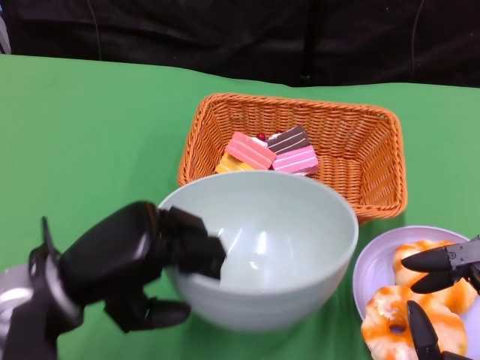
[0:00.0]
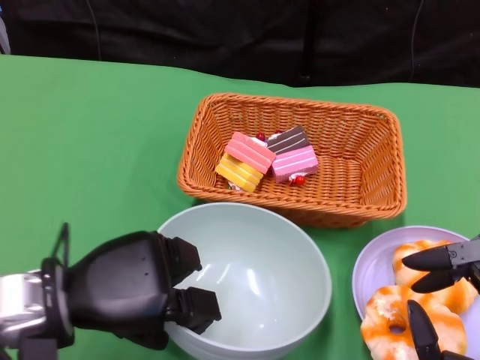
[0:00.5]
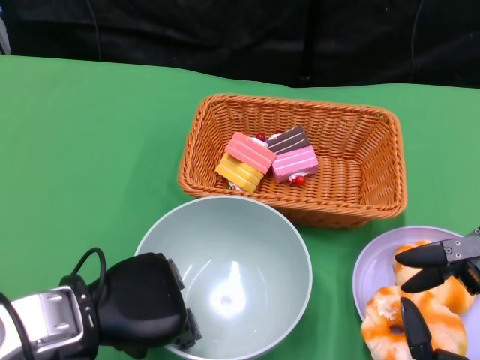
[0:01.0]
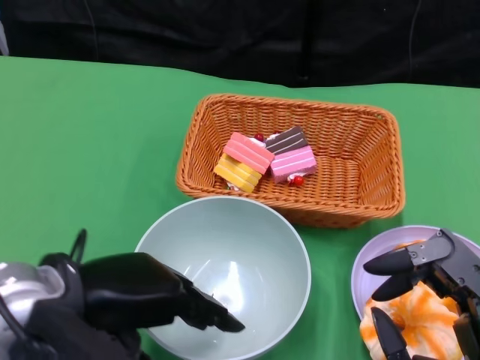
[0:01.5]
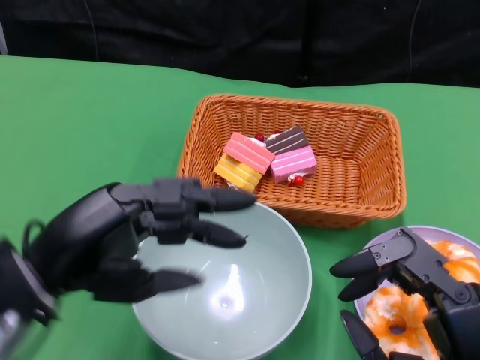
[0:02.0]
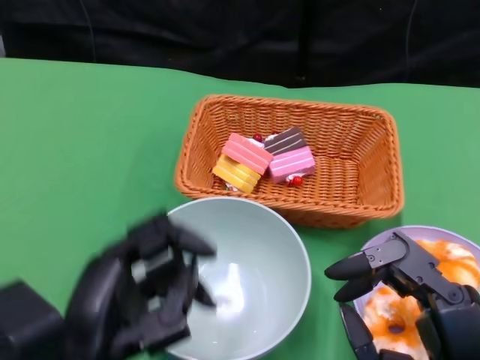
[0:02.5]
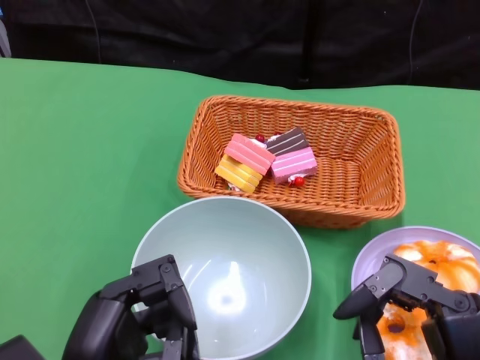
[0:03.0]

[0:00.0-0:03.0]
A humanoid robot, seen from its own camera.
0:00.0 to 0:01.5: The left hand ends up some 5 cm from where it was.
0:01.5 to 0:03.0: The left hand goes about 10 cm backward and downward.

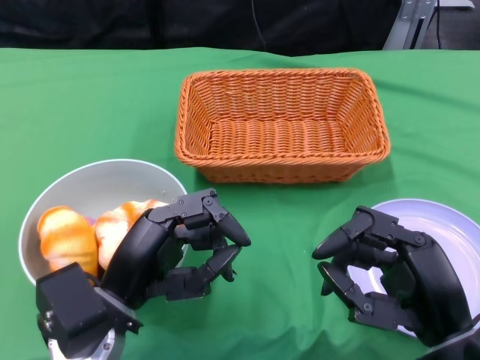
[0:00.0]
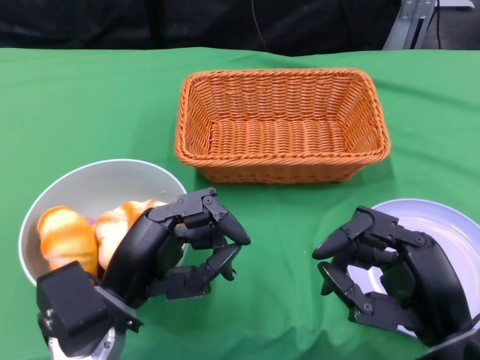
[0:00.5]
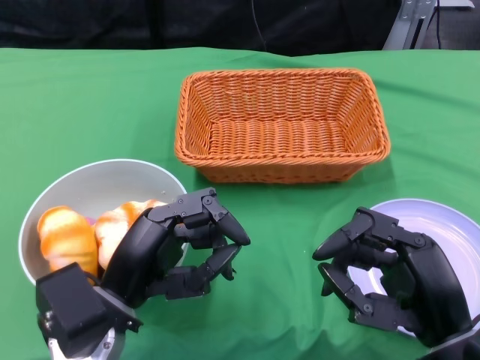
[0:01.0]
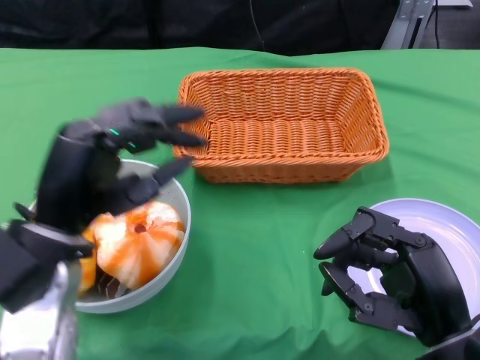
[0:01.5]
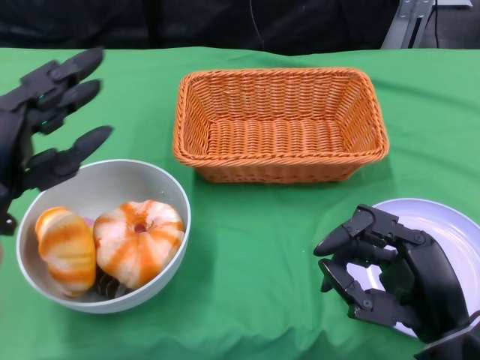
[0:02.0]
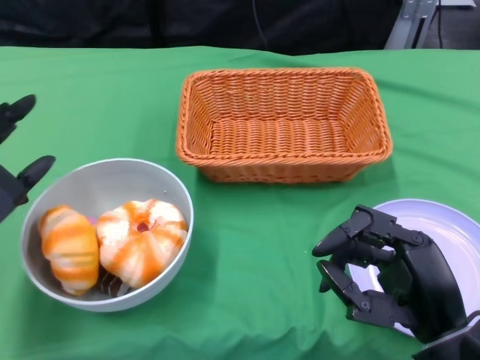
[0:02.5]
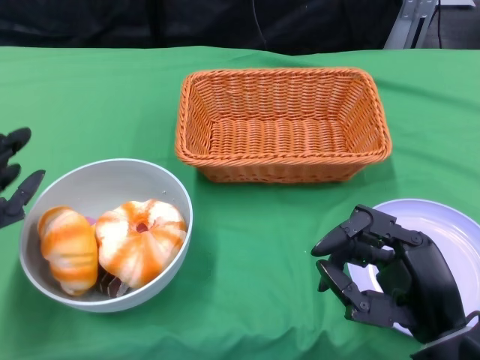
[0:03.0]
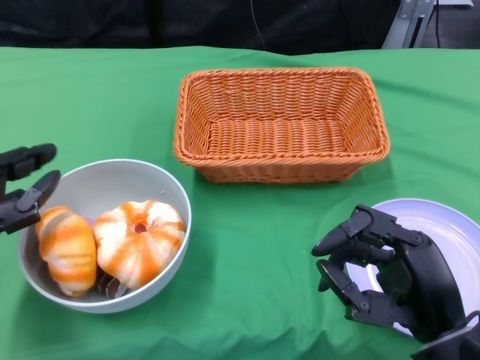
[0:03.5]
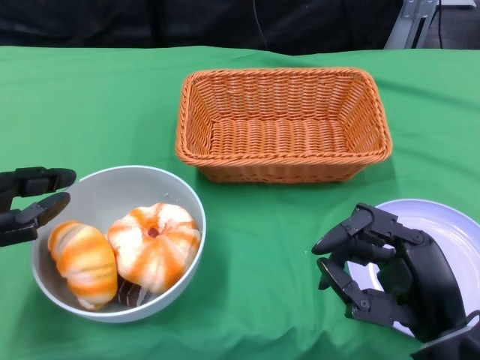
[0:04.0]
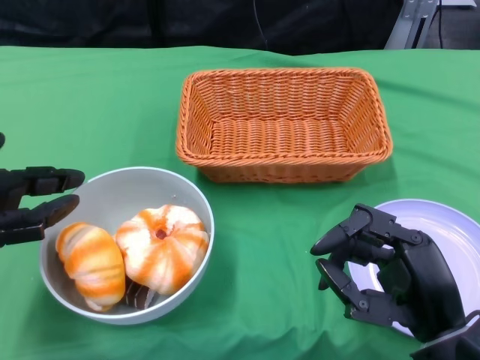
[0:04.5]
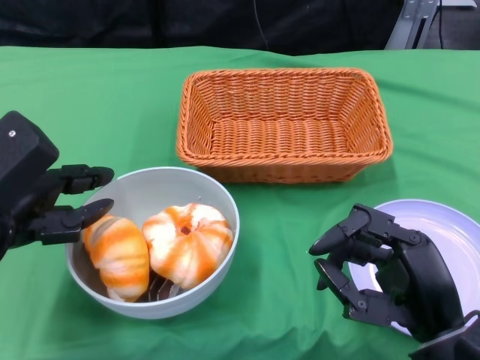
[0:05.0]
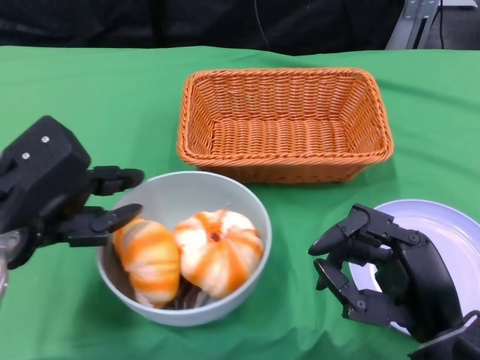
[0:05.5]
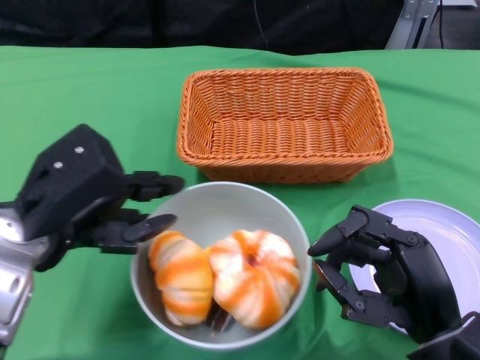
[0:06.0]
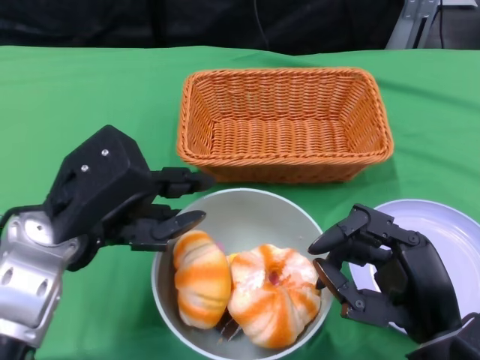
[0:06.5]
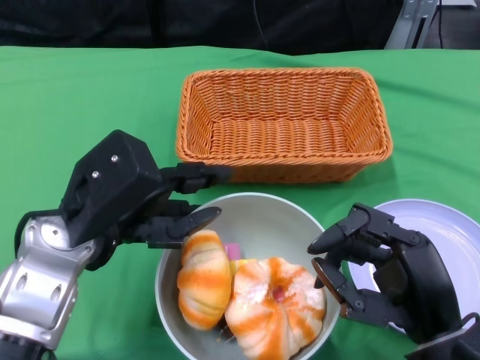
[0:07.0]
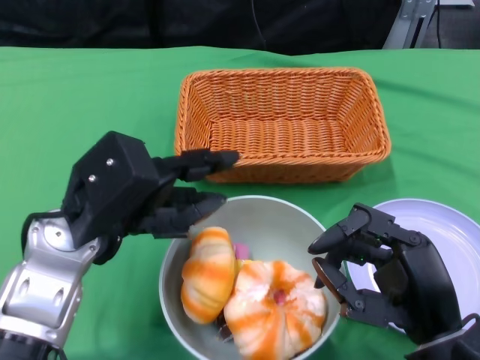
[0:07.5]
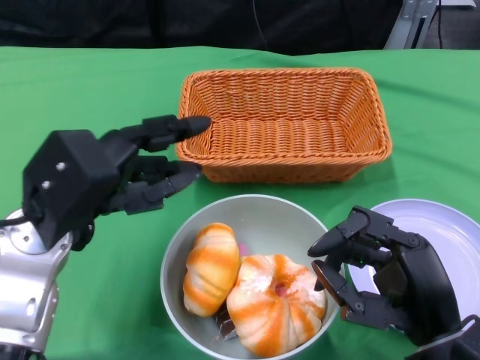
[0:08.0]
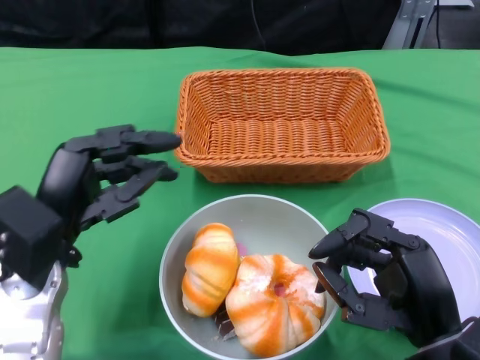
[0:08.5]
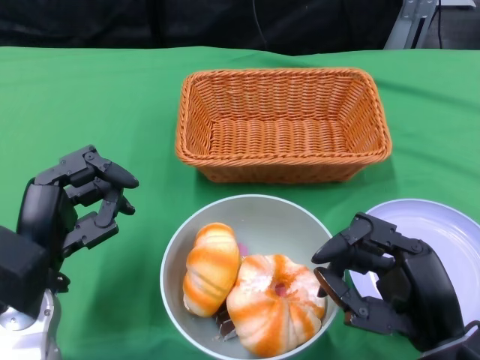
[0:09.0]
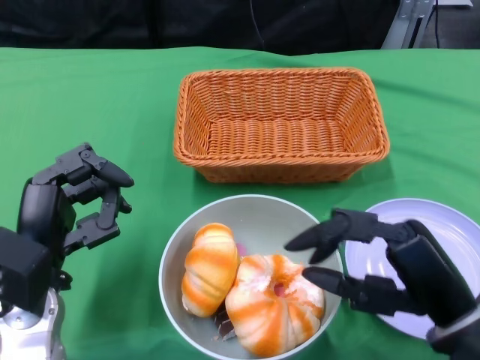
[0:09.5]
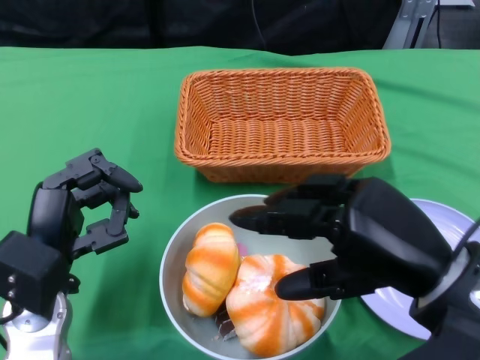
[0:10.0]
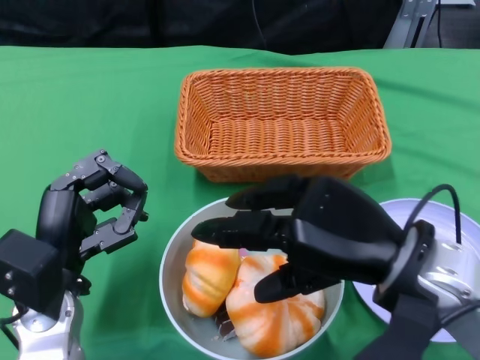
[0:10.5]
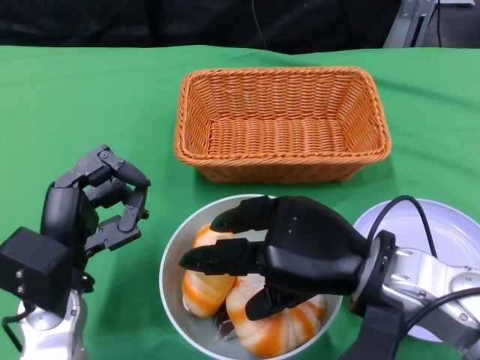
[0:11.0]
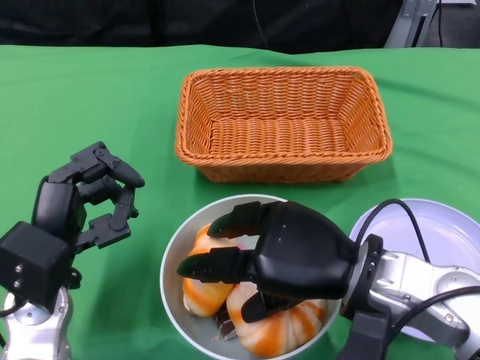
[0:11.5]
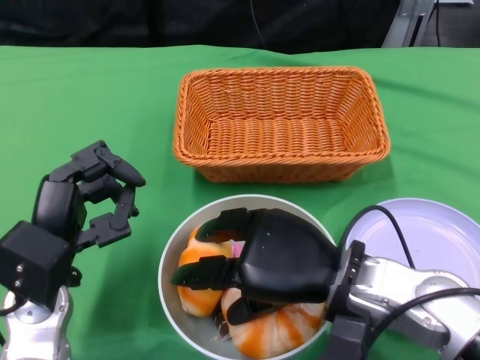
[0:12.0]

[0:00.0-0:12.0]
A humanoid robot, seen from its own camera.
Step, 0:00.0 to 0:07.5: Push the bowl to the center of the table using the left gripper.
0:02.0 to 0:04.0: The left hand shifts roughly 5 cm to the left.
0:04.0 to 0:06.0: The left hand shifts approximately 10 cm to the right.
0:08.0 to 0:10.0: The left hand moves downward, some 10 cm. The right hand is displaced upward by approximately 10 cm.
0:10.0 to 0:12.0: The right hand is displaced to the left by about 5 cm.

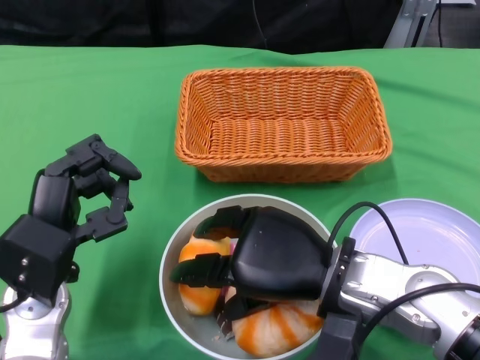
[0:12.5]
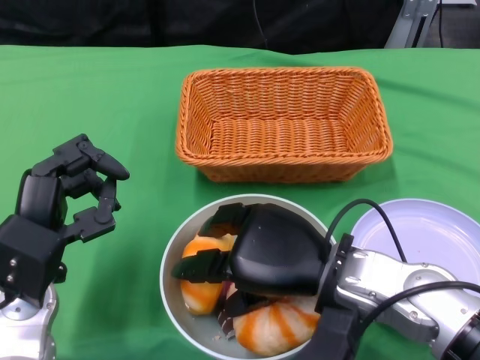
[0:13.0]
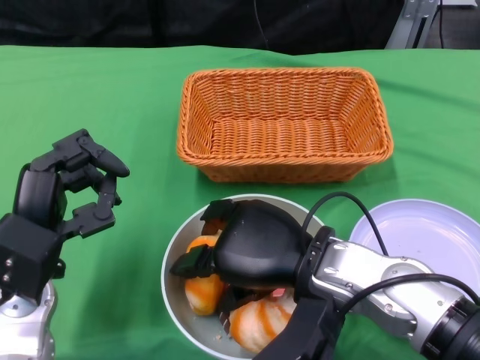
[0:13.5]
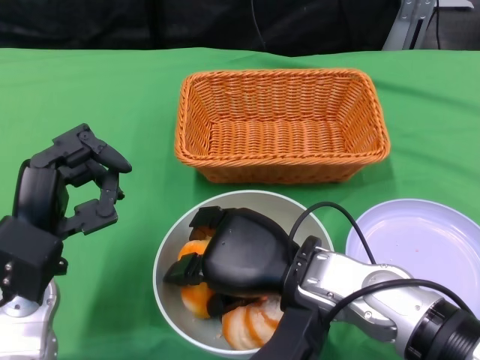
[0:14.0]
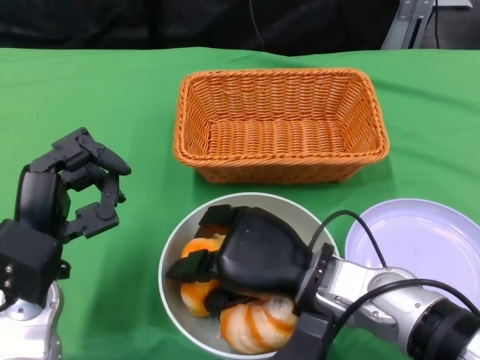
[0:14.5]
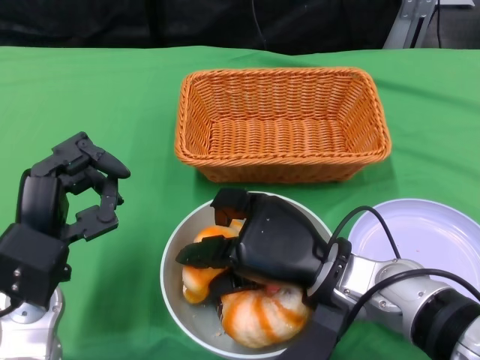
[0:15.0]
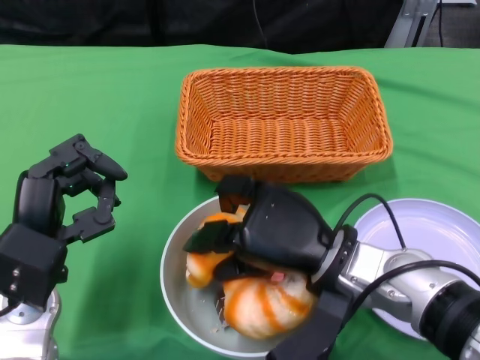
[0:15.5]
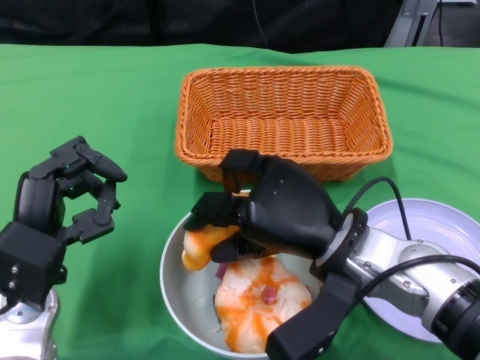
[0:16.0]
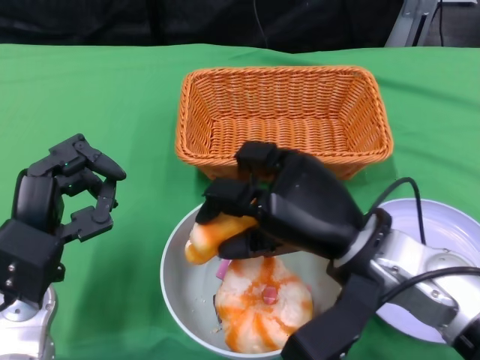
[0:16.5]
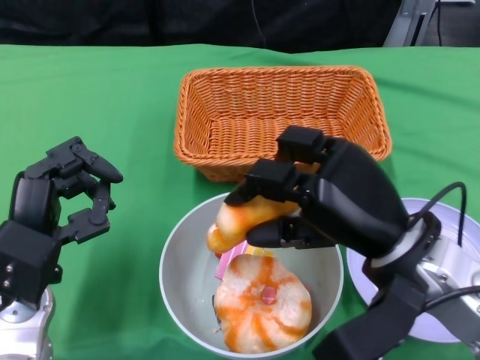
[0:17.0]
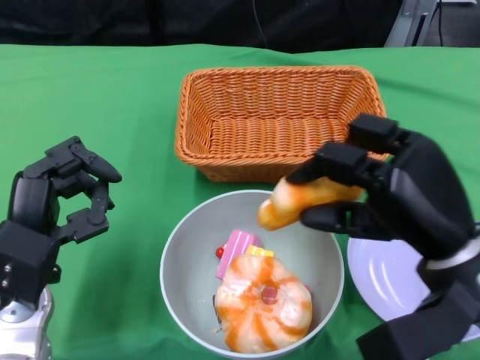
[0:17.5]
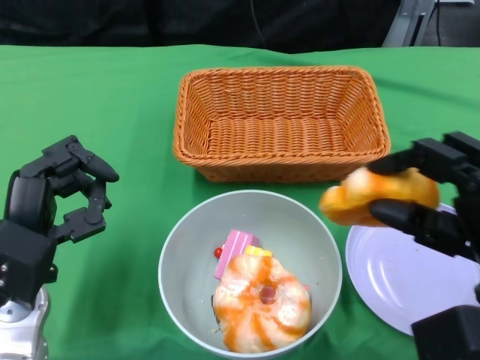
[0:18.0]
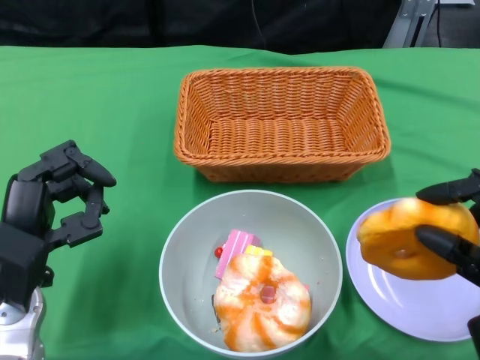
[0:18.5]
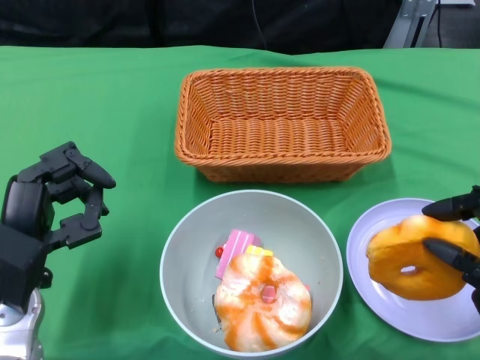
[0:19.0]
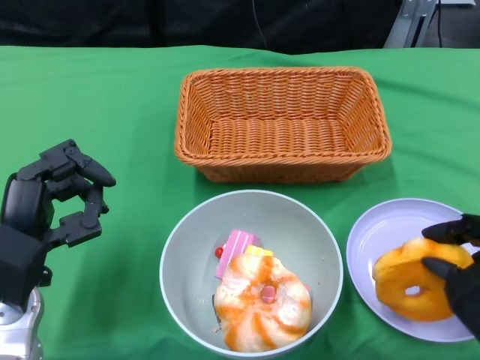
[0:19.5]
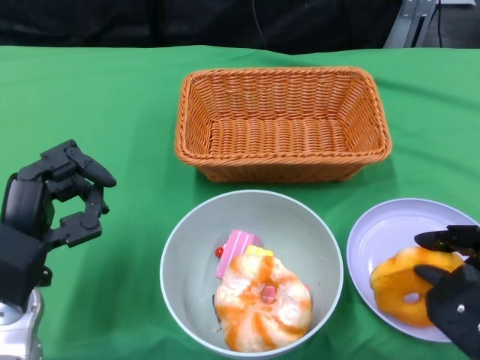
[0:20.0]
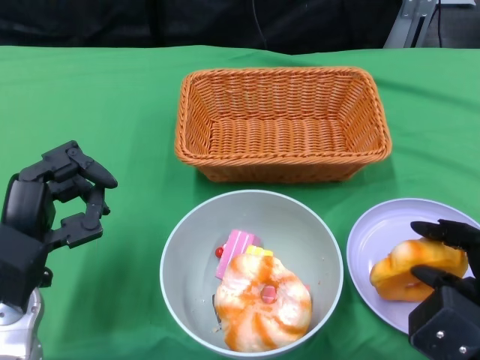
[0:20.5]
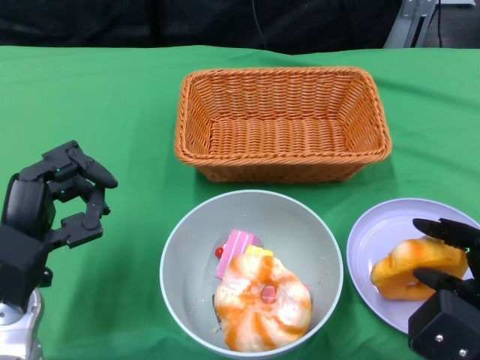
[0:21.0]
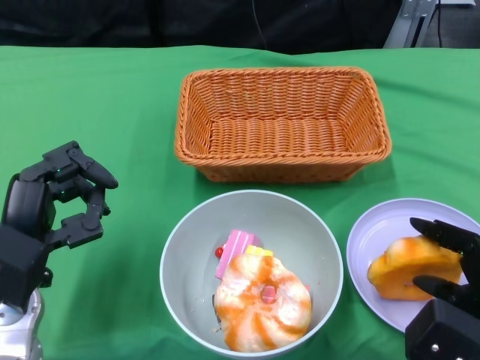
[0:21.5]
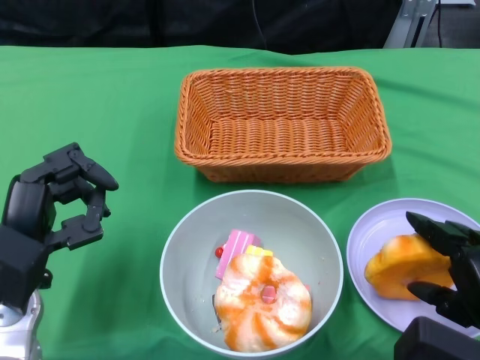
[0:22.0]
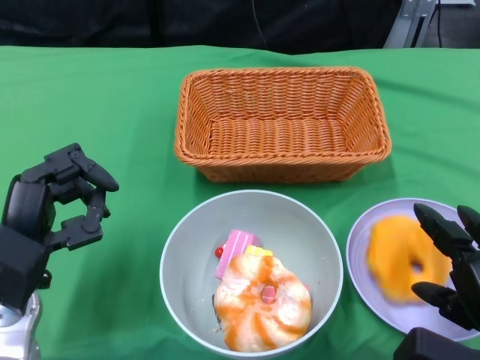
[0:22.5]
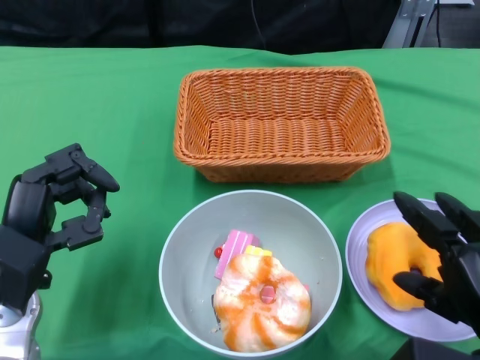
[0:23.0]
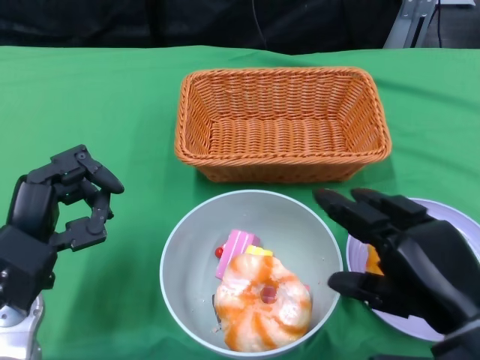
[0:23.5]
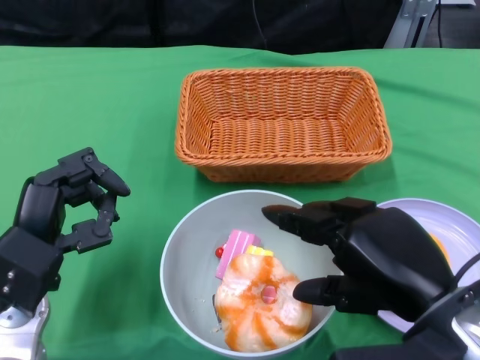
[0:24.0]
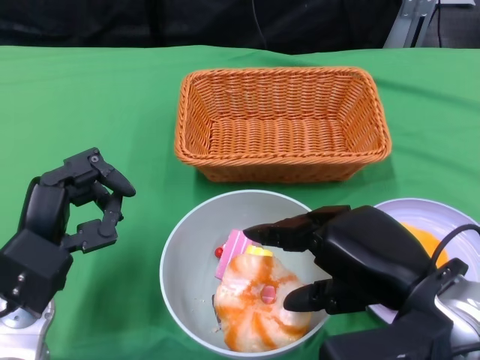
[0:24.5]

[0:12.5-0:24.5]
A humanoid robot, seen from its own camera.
Step, 0:12.5 to 0:22.5: Pick up the bread with the right gripper and place it on the plate.
0:14.5 to 0:16.5: The right hand ends up approximately 5 cm from where it was.
0:16.5 to 0:18.5: The right hand goes approximately 15 cm to the right and backward.
0:20.5 to 0:22.5: The hands make only small movements.
0:22.5 to 0:24.5: The right hand travels upward and to the left by about 10 cm.
